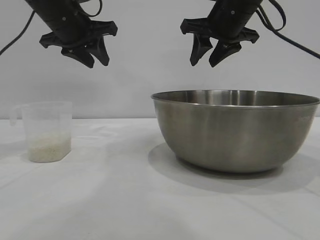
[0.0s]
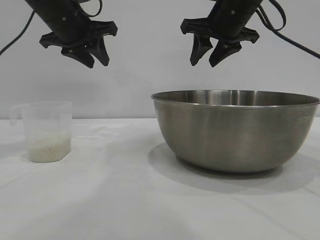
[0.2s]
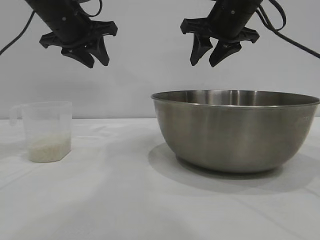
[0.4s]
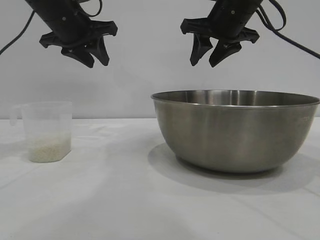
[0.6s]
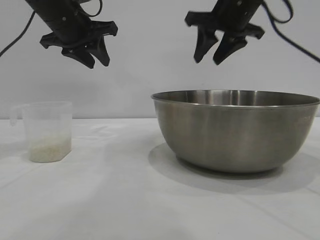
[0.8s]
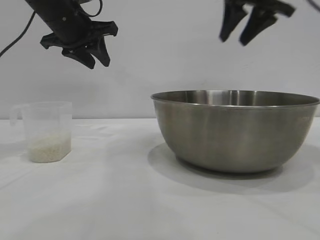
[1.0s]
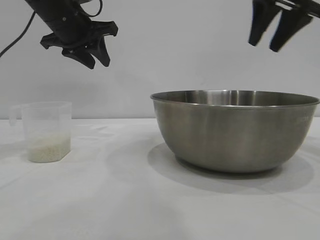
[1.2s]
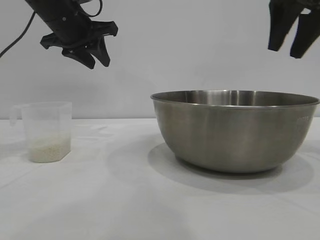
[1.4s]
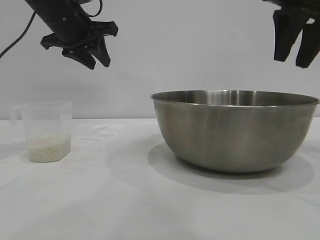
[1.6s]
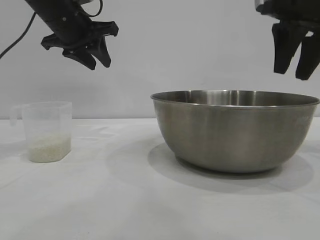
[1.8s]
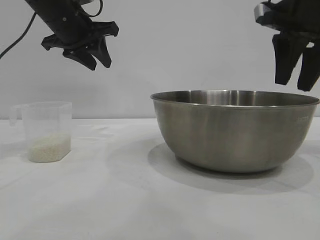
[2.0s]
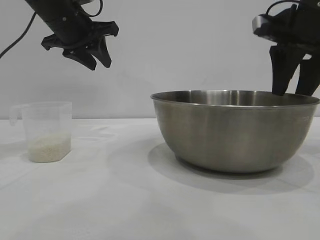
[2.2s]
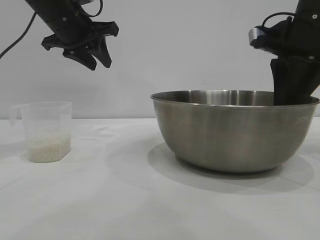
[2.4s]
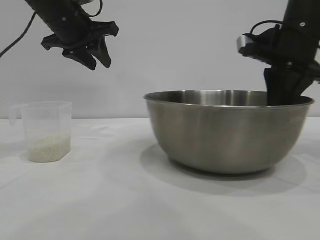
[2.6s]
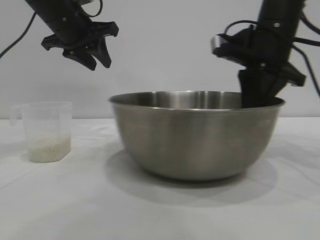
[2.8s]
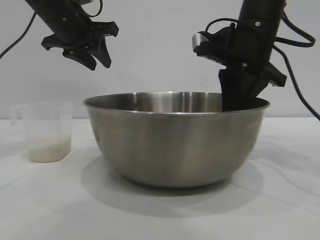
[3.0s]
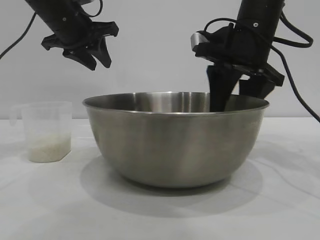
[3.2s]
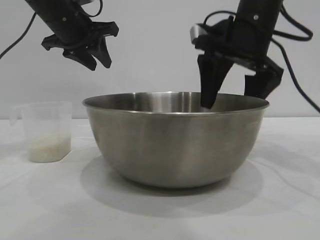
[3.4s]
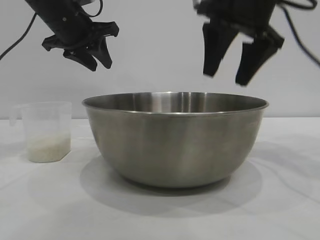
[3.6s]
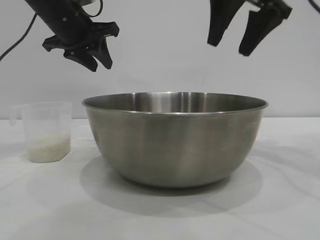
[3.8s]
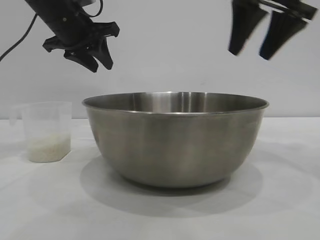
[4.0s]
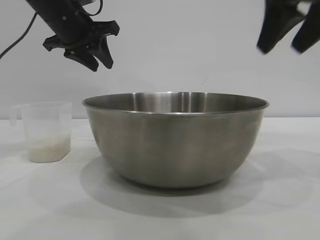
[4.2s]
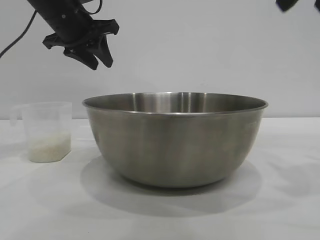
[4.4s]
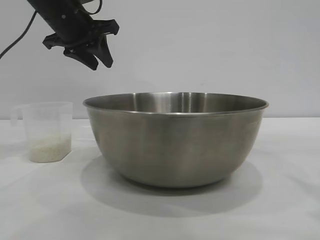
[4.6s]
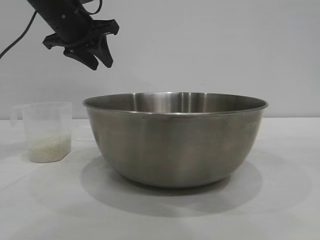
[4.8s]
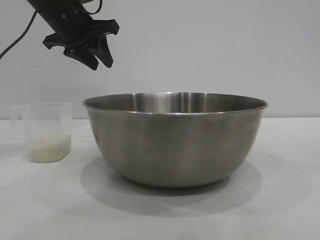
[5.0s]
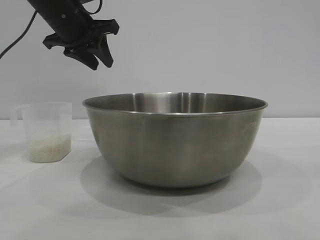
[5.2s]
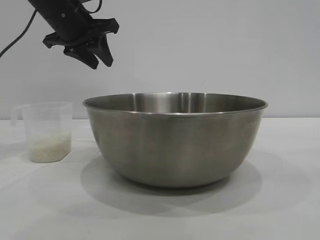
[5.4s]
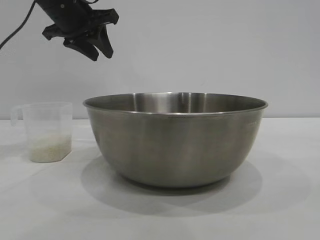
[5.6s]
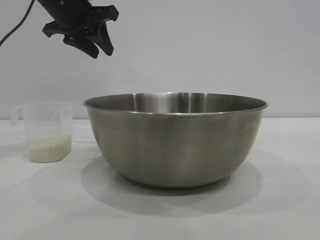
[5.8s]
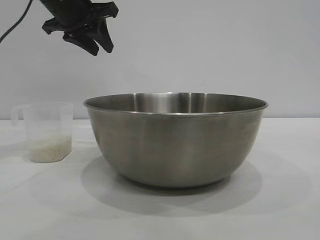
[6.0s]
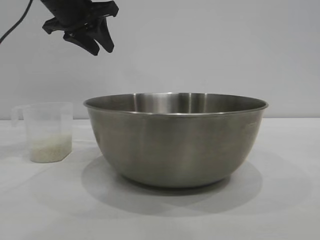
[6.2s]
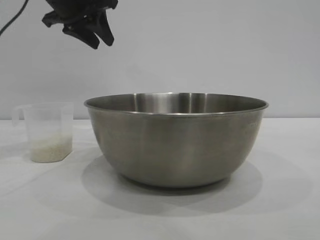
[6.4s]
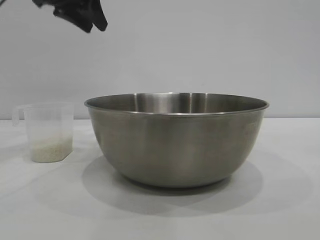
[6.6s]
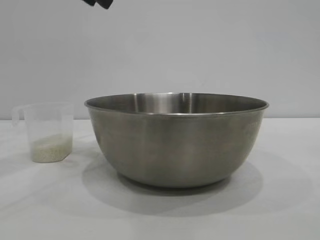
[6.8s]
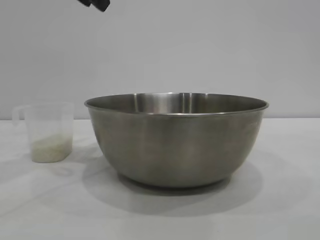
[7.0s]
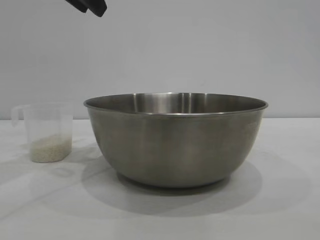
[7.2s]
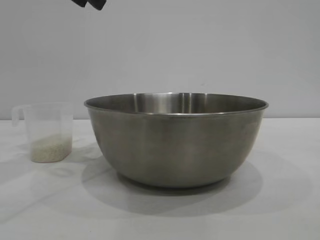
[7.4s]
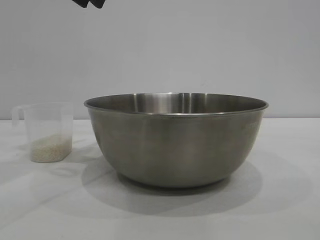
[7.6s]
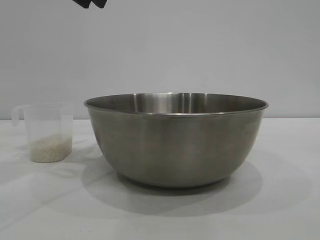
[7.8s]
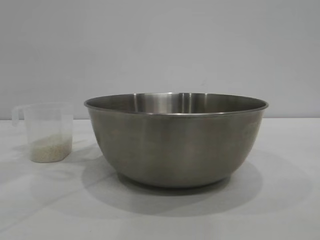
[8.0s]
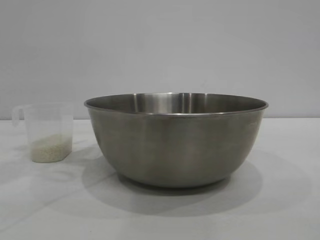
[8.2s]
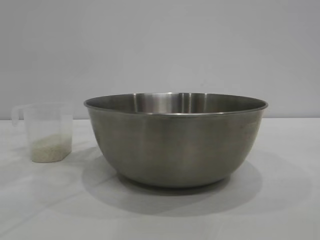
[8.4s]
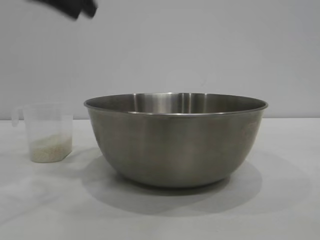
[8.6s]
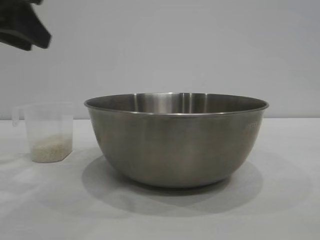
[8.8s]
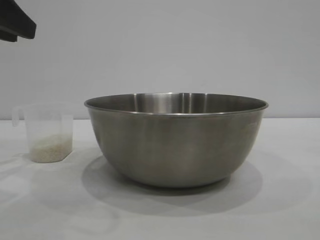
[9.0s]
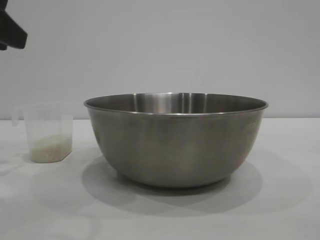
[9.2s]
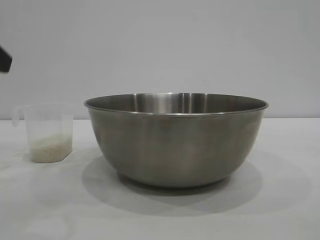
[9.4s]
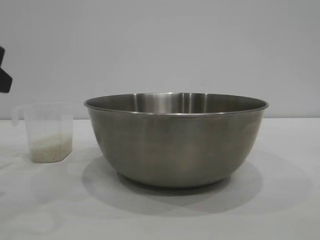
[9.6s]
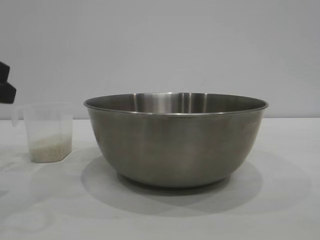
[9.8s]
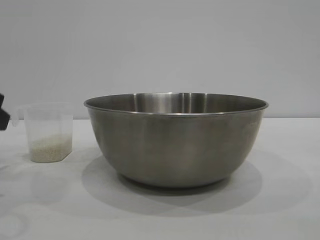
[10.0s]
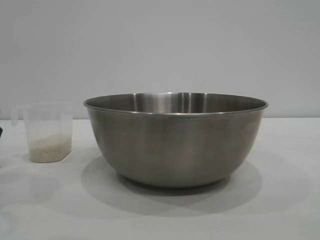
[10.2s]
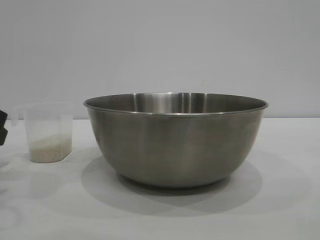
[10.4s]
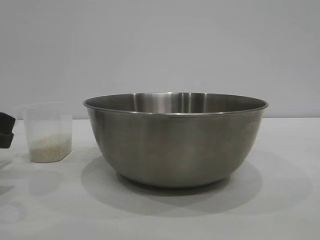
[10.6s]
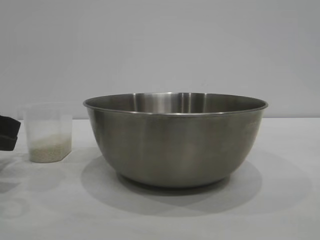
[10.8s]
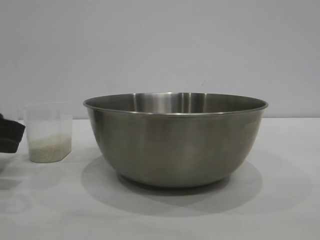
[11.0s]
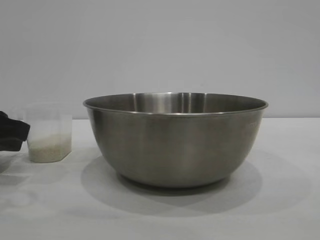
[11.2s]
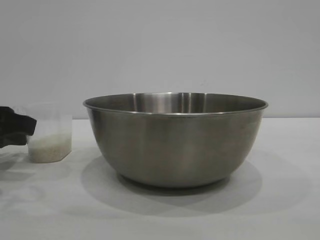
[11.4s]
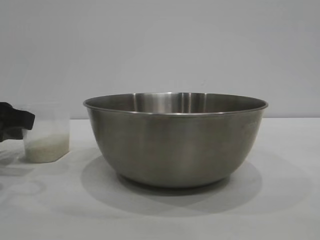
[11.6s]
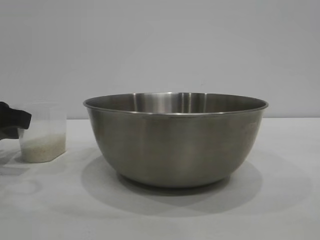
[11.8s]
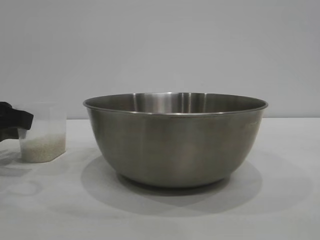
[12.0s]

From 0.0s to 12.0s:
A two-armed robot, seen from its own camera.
Task of the whole recording: the right gripper grasp the rice container and place it in the center of the table, the left gripper grasp the rice scoop and pour the rice into the rice container.
Step, from 0.0s to 3.4s: Move the bowl to the center of view with the right gripper.

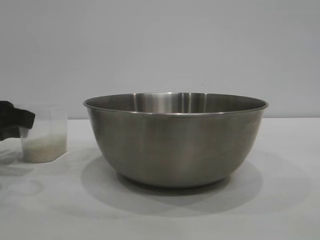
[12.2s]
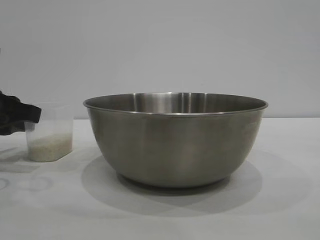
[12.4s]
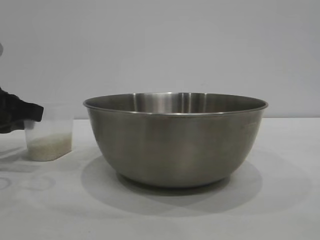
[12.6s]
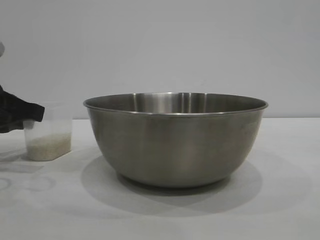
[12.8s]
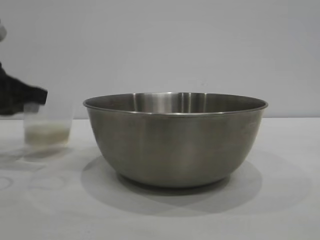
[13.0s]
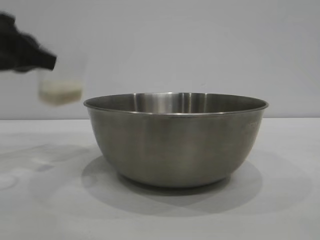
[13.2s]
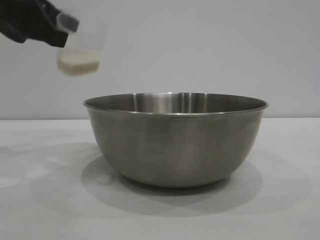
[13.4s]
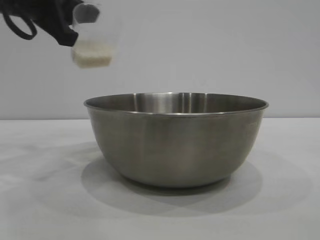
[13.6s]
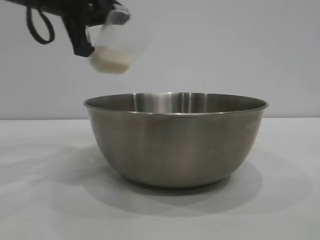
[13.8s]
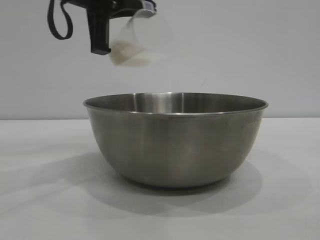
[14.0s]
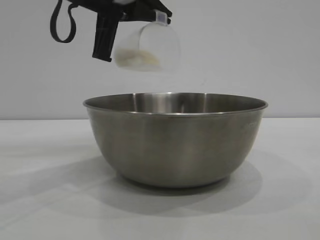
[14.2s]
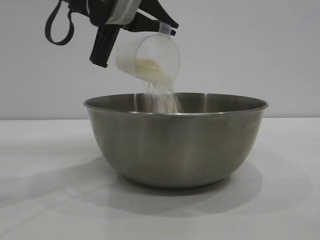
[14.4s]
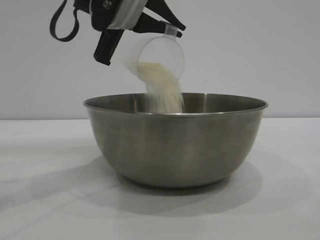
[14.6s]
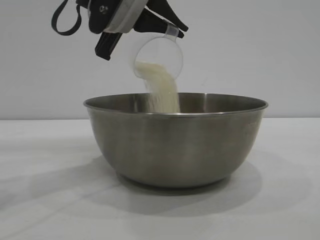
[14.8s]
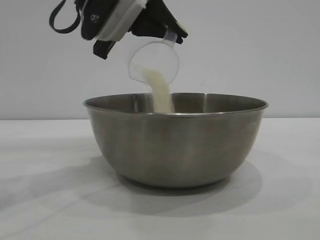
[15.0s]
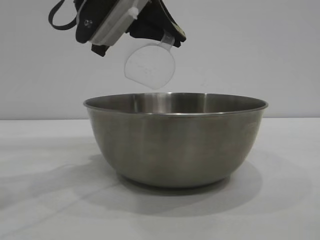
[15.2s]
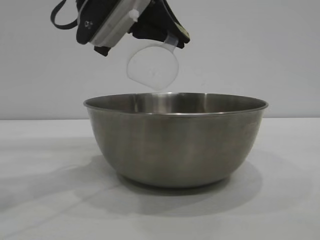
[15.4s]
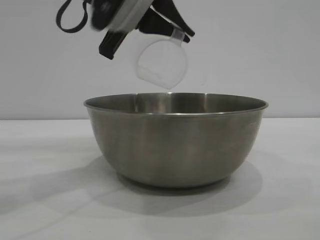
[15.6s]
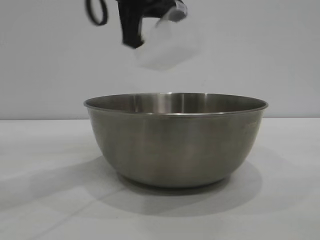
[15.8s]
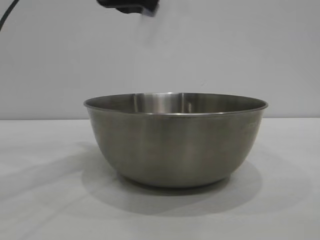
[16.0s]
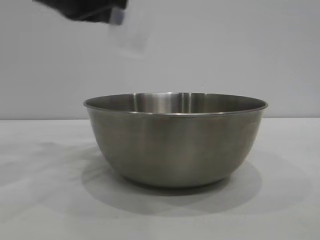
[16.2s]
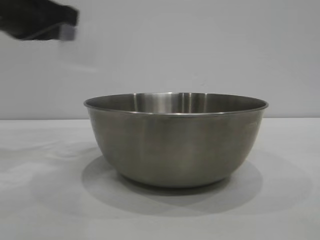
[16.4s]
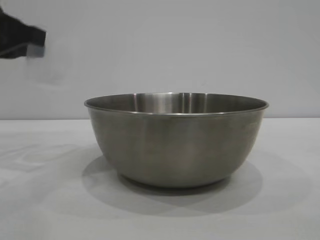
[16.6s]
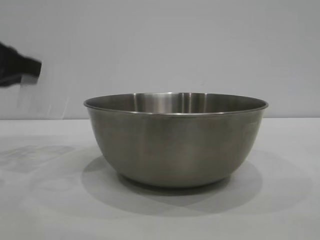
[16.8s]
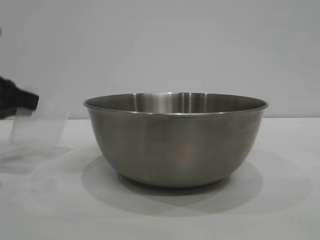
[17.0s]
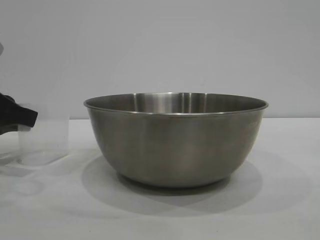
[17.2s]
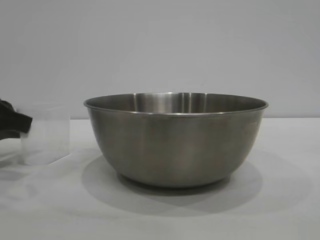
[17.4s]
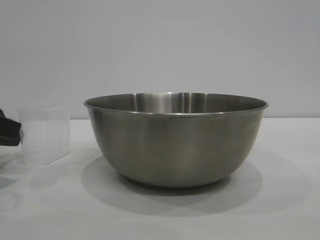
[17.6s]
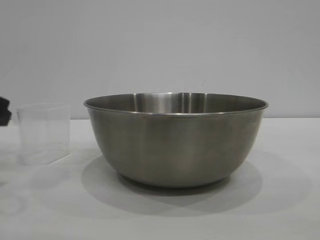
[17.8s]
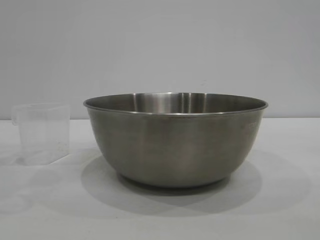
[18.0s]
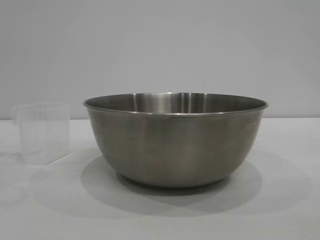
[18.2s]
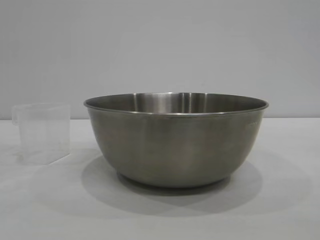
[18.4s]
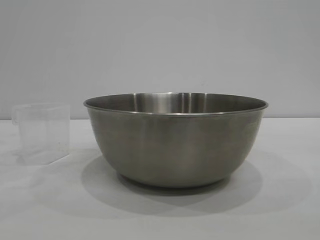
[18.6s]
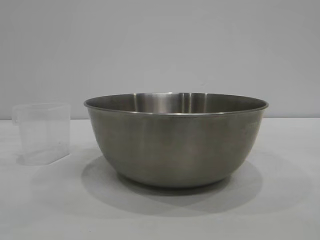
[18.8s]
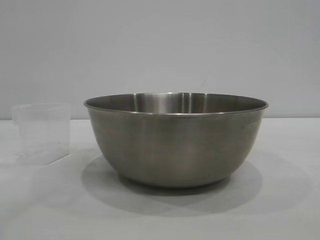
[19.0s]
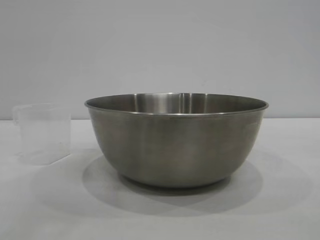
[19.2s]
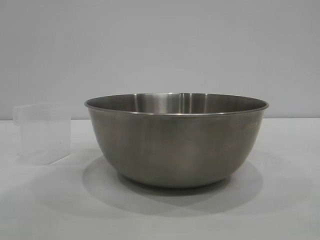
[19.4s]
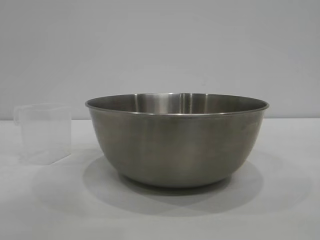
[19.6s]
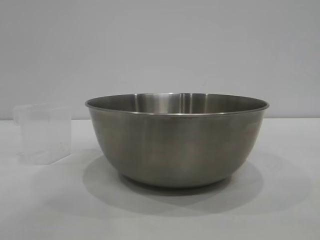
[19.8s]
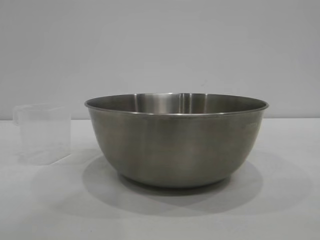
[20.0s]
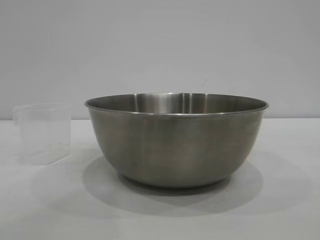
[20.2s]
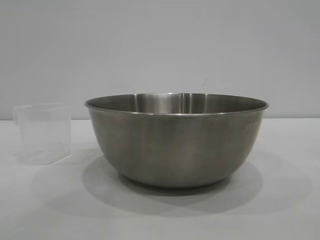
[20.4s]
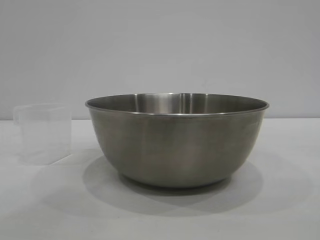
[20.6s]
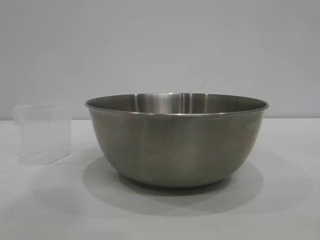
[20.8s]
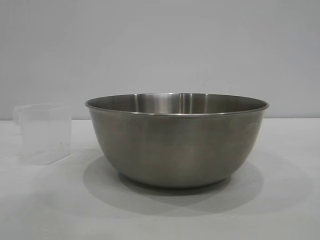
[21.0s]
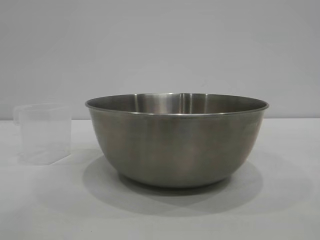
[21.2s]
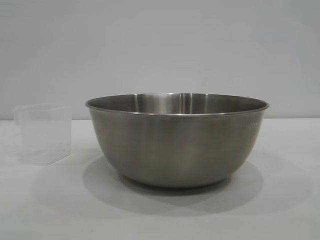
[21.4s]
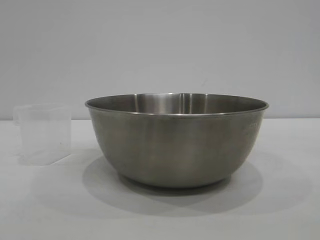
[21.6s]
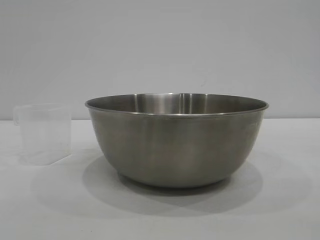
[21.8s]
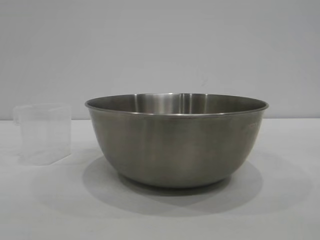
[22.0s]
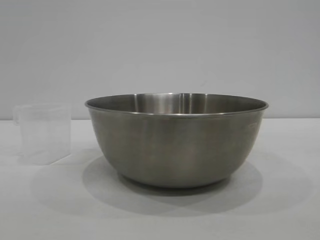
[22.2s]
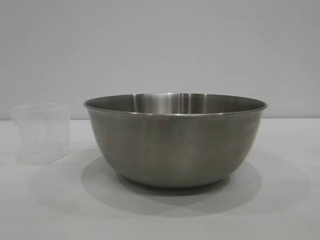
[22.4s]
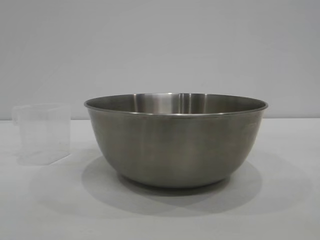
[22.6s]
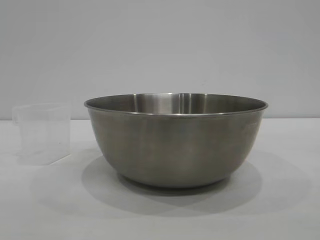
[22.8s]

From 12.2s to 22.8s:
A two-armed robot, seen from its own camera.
Task of the whole recording: the right gripper grasp the rice container and place it in the center of the table, the left gripper grasp the rice scoop and pour the rice into the rice container.
Step, from 13.2s to 15.6s: Pour the rice from the cup into the bowl with the left gripper.
Step, from 15.8s to 17.8s: Place the cup on the table with the left gripper.
